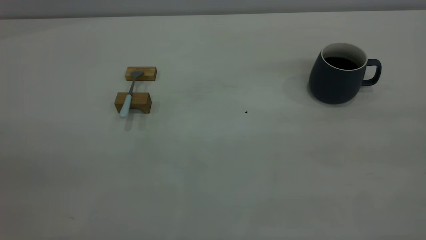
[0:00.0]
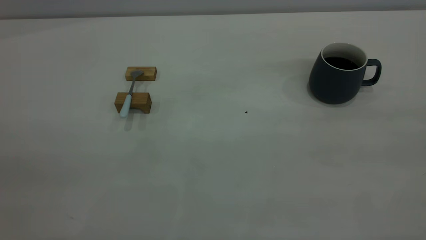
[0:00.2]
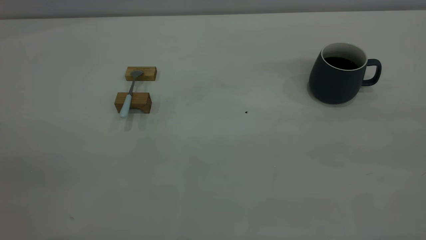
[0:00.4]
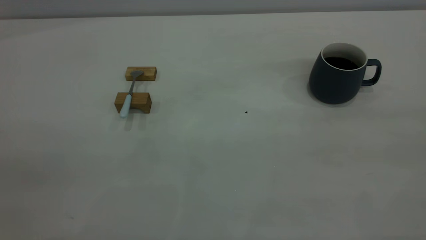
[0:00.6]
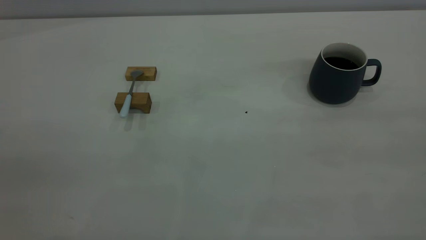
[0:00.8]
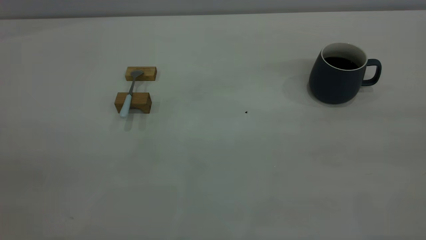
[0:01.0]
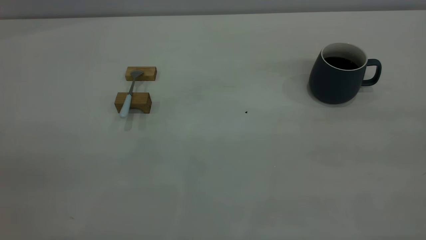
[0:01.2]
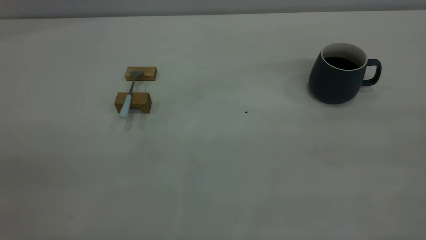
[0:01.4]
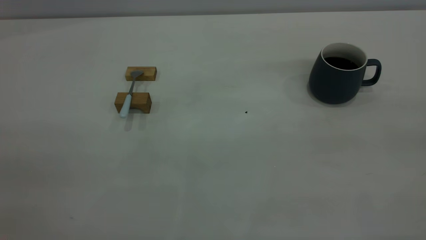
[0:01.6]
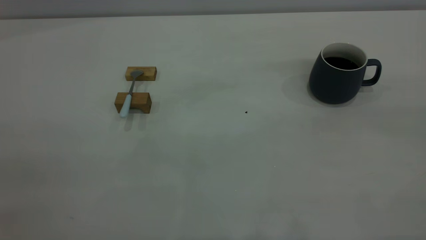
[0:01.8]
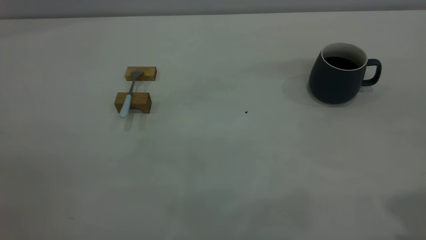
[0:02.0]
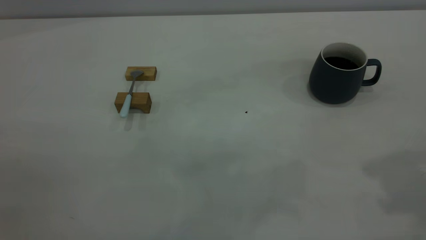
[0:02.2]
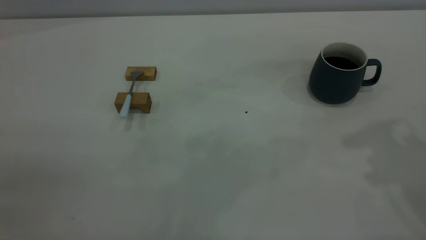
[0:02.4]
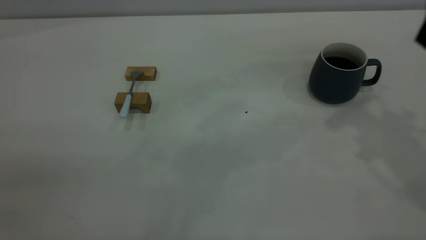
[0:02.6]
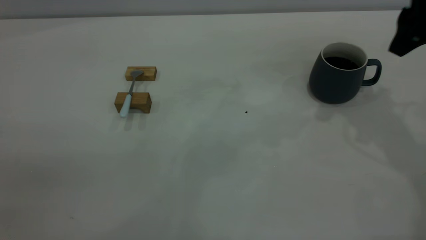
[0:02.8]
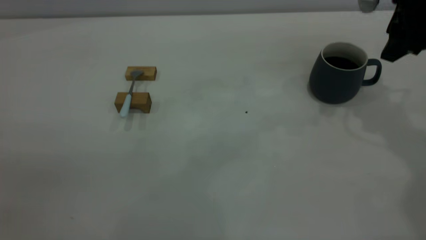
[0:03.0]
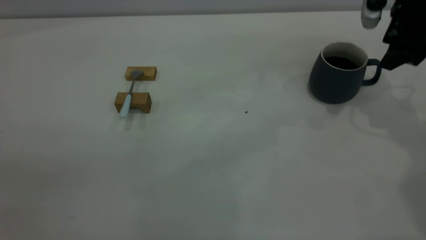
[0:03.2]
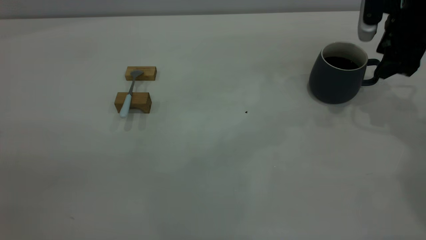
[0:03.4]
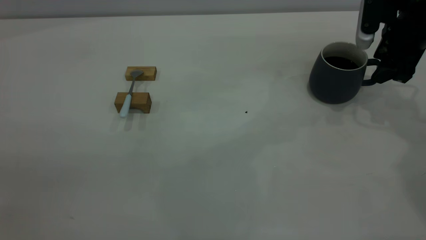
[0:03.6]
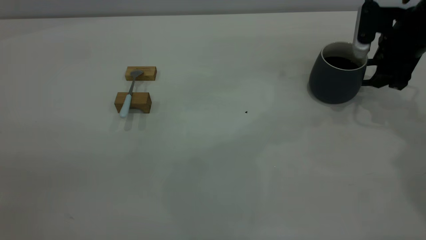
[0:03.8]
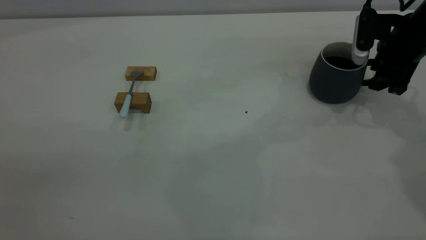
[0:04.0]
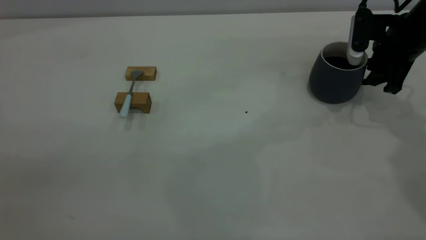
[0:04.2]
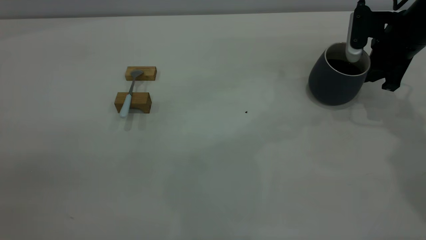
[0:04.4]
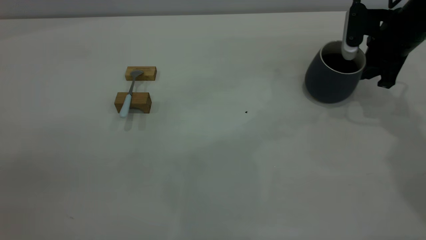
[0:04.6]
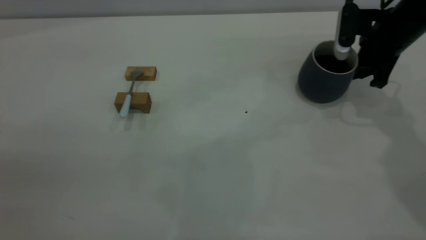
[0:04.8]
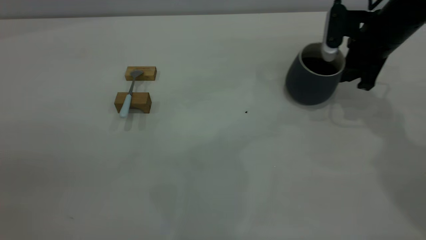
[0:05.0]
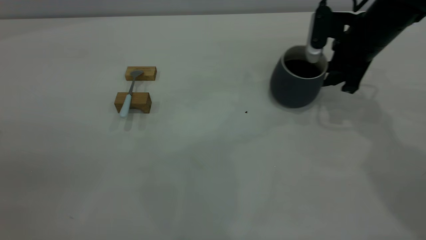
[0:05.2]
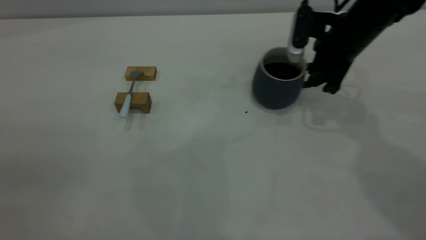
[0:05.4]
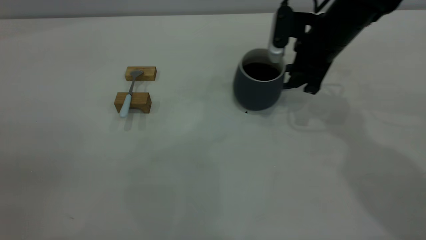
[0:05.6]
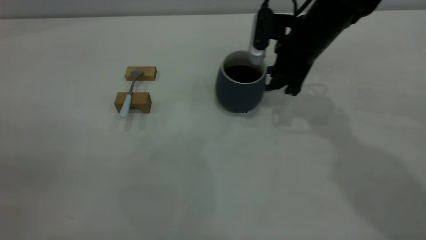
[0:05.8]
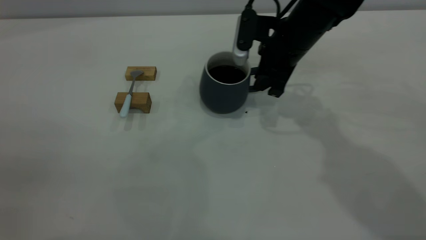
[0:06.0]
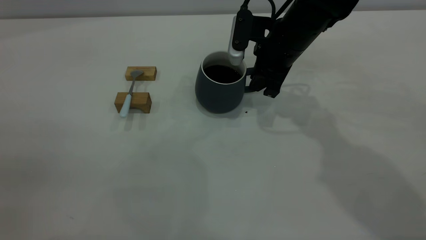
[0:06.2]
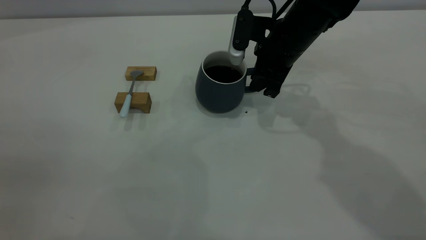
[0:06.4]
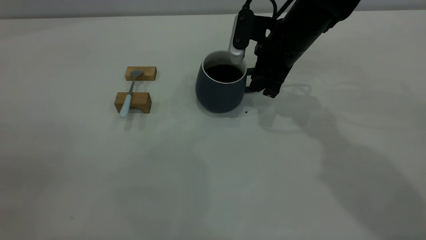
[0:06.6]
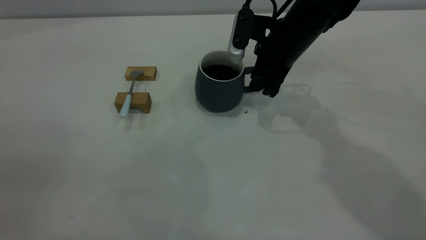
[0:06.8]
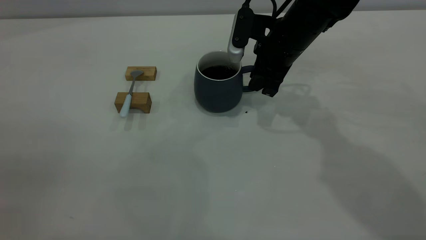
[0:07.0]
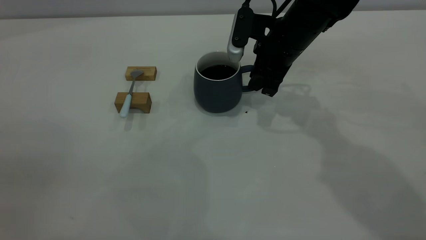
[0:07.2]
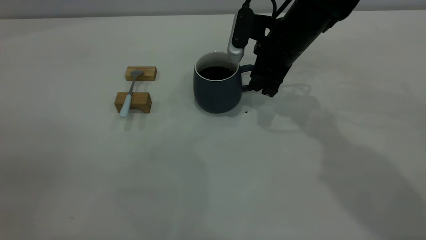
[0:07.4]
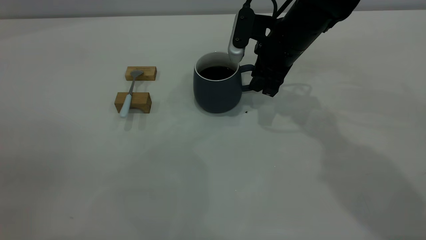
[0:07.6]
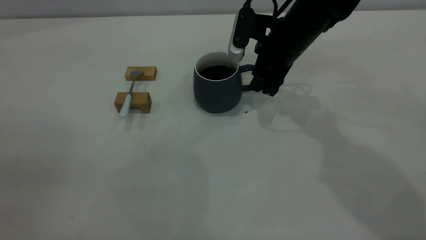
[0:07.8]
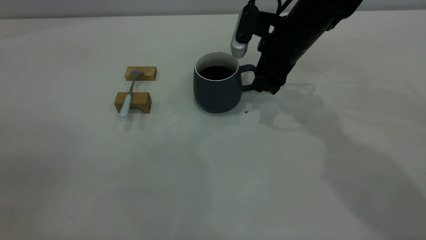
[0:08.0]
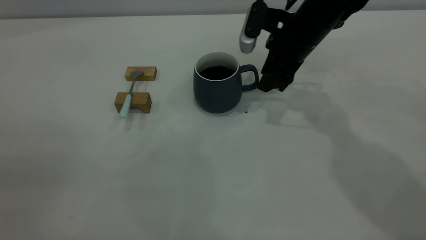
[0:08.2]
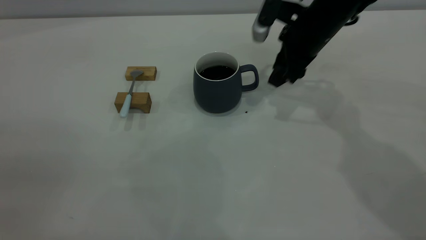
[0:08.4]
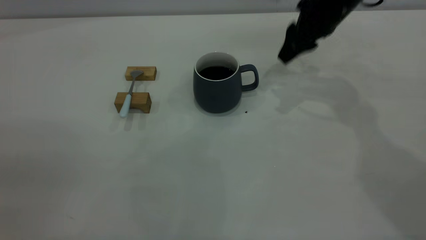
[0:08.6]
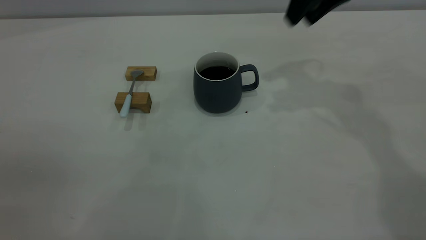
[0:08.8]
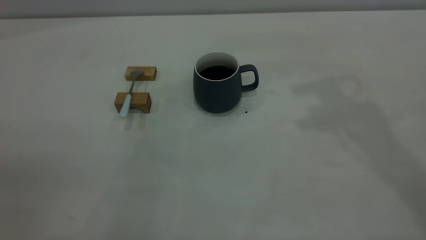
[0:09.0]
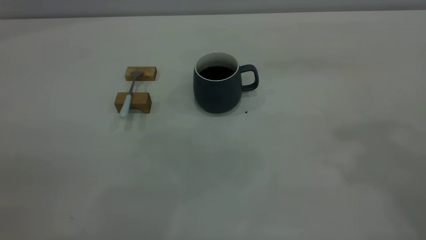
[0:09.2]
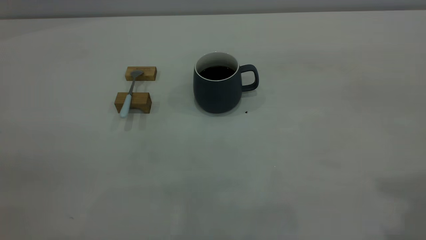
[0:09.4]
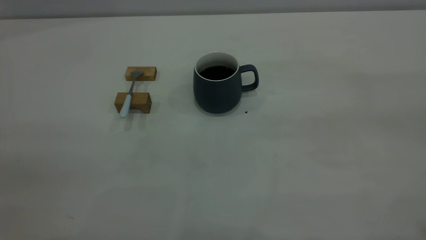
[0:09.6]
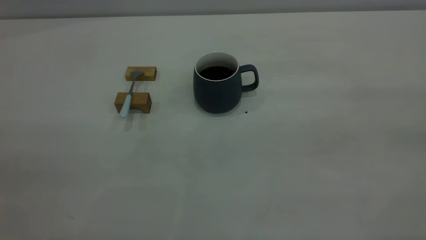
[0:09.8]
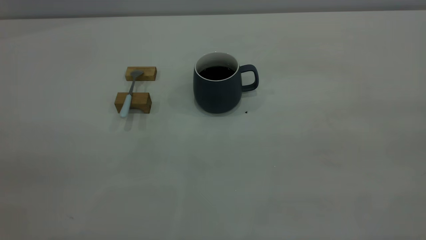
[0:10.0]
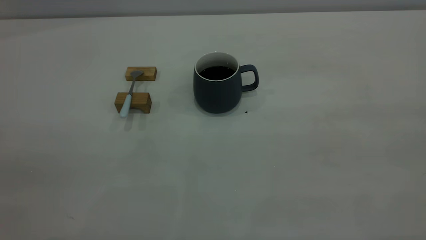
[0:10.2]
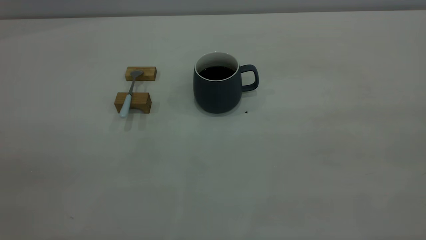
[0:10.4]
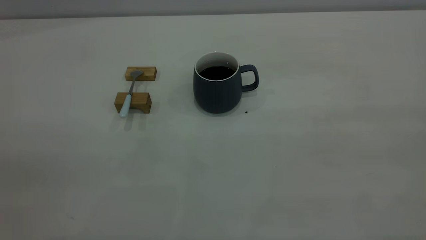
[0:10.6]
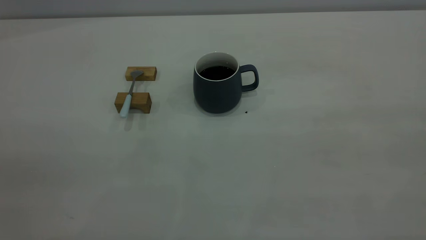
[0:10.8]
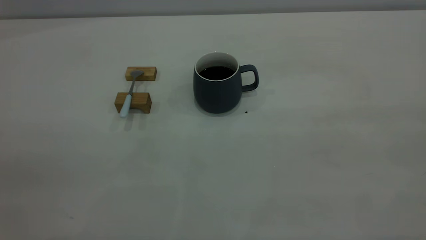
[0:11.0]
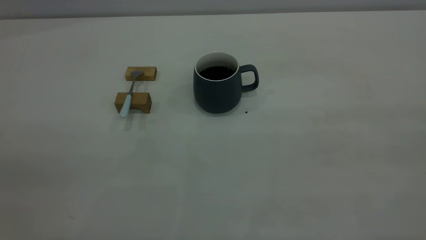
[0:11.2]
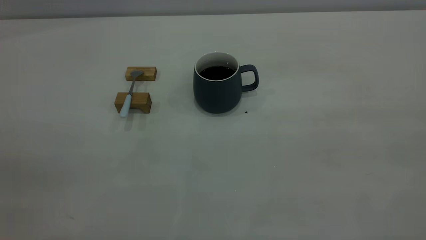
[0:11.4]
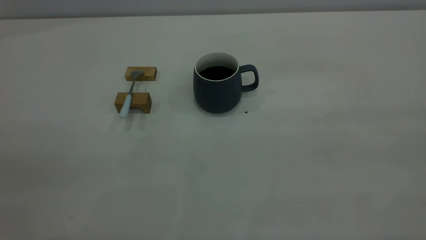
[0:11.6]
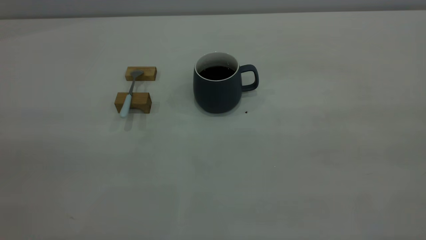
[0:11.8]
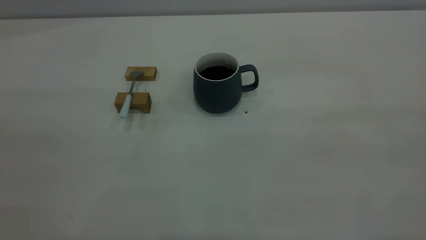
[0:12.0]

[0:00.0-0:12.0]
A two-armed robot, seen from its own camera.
Step, 0.0 to 8.4 s: Move the cup with coffee to the center of view.
1.6 to 3.0 s: The right gripper heads forward and downward, covering roughly 40 cm, and opens up.
3.0 to 4.4 s: The right gripper moves downward, some 10 cm, and closes up.
4.4 to 6.0 s: The right gripper heads to the left, covering approximately 20 cm.
6.0 to 7.6 s: The two grippers keep their place.
7.6 to 9.0 s: The right gripper is displaced upward and to the right by roughly 25 cm.

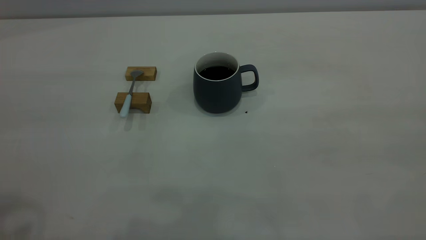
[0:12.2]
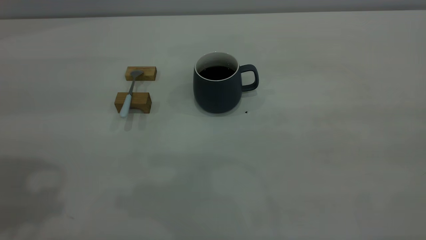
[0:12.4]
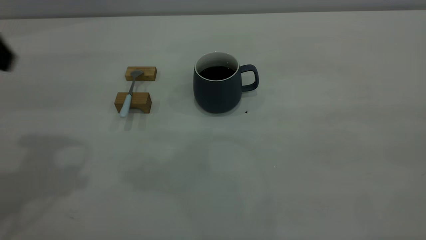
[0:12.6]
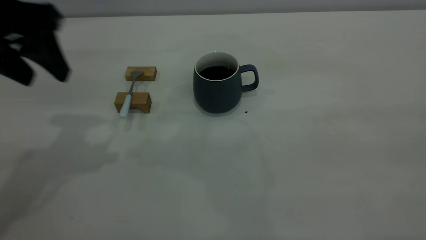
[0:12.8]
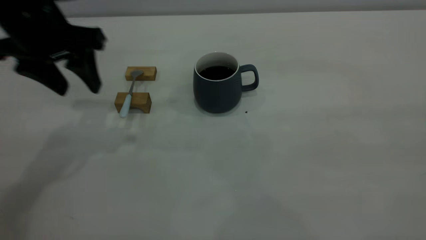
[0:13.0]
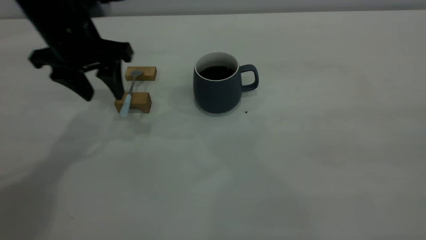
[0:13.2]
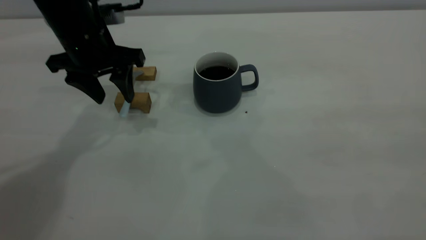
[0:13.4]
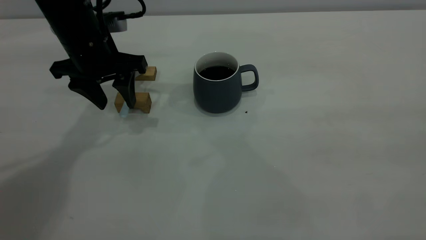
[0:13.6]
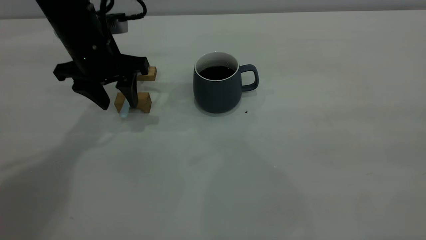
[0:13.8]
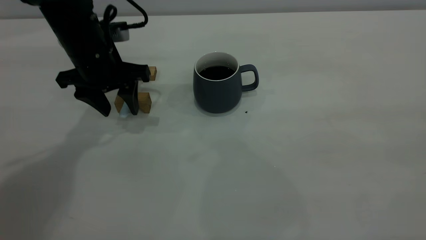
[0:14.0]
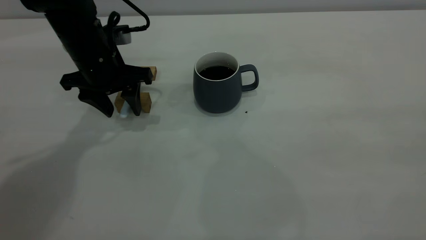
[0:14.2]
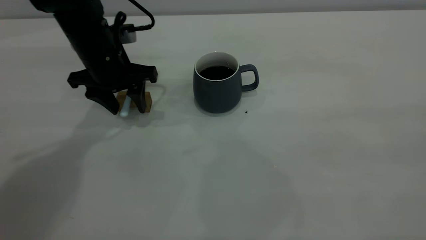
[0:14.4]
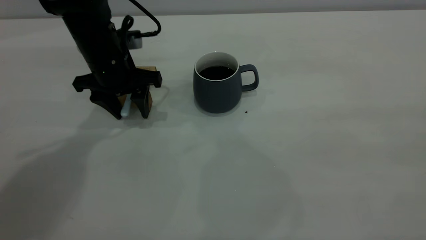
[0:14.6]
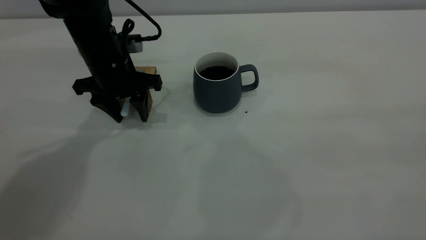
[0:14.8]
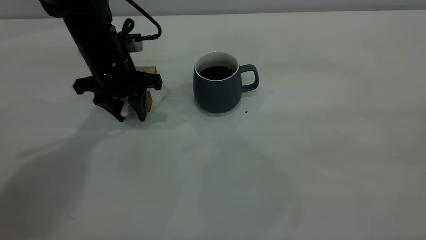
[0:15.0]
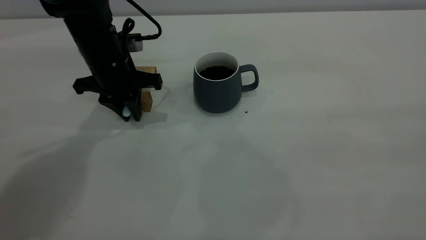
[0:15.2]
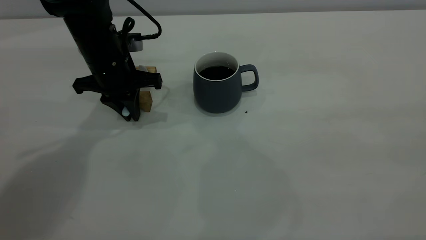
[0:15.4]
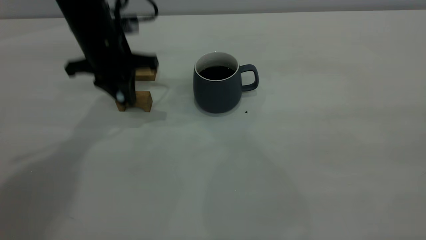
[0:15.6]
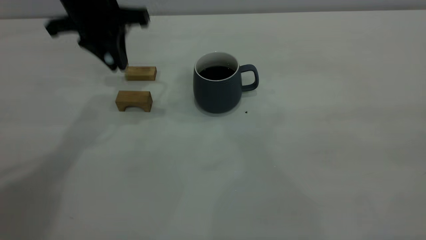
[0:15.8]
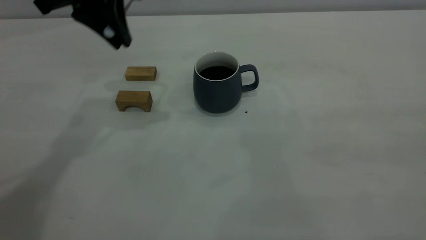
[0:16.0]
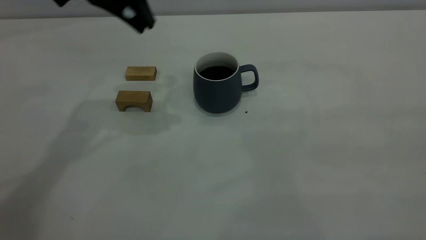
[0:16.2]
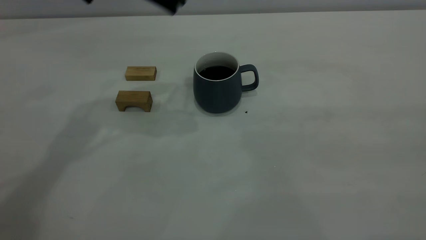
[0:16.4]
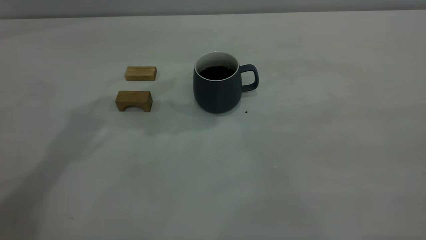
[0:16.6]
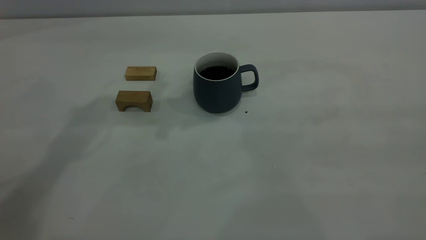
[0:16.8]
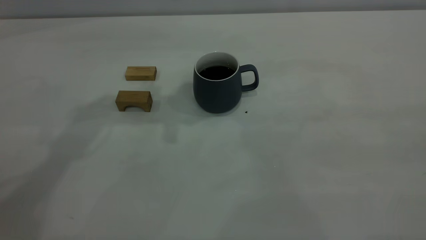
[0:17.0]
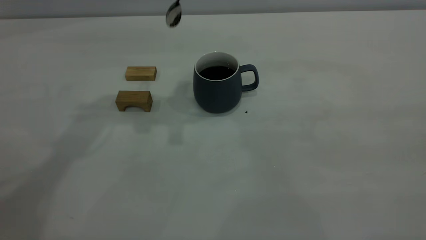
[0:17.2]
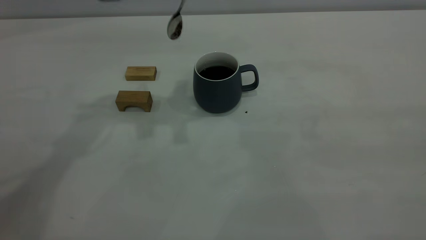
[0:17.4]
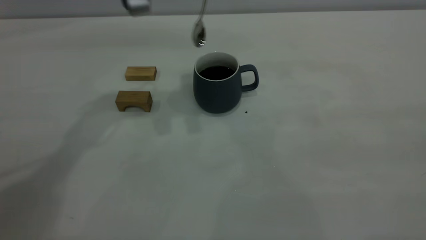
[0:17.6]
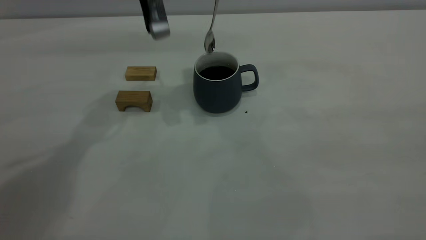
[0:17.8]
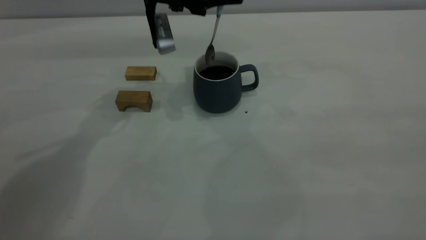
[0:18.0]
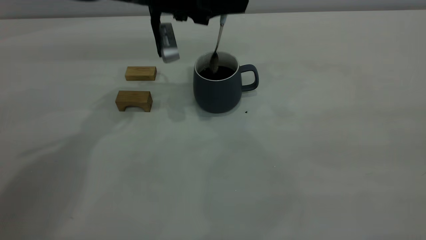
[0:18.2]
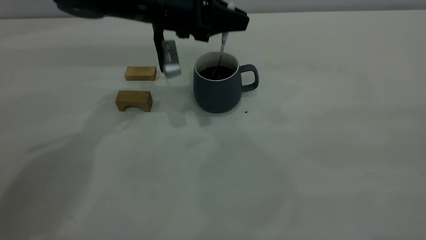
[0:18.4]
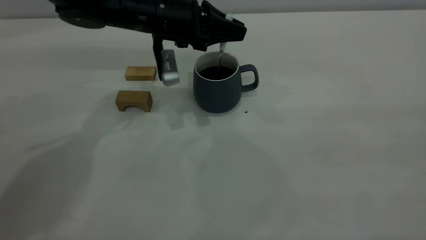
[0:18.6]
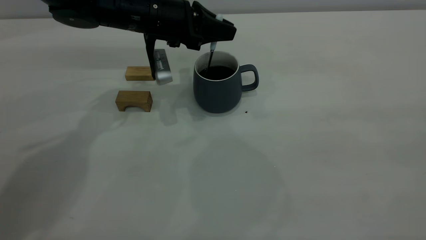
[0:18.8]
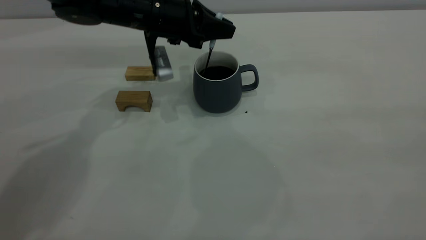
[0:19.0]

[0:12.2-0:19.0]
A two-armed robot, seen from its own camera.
Step, 12.2 to 15.8 s: Pick up the spoon.
12.2 to 13.6 s: The left gripper goes roughly 35 cm forward, downward and to the right.
13.6 to 15.0 s: The left gripper changes place by about 5 cm, and closes.
15.0 to 16.2 s: The left gripper moves upward, about 20 cm, and closes up.
16.2 to 17.6 s: The left gripper ends up some 5 cm from where it was.
17.6 to 19.0 s: The left gripper heads downward, covering roughly 10 cm.
